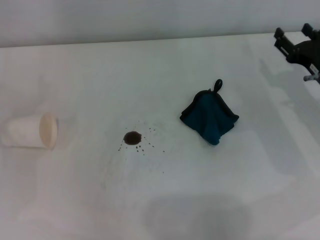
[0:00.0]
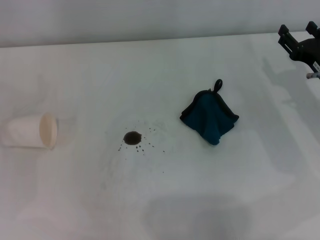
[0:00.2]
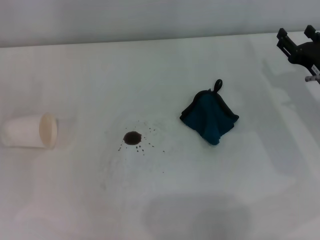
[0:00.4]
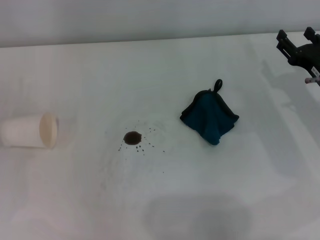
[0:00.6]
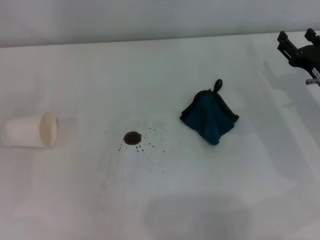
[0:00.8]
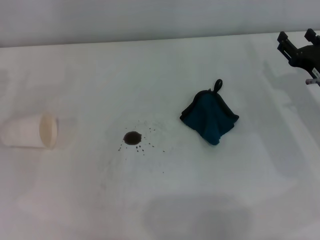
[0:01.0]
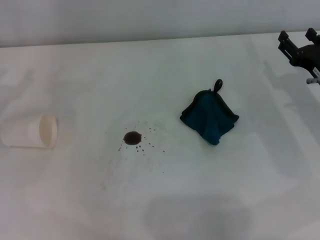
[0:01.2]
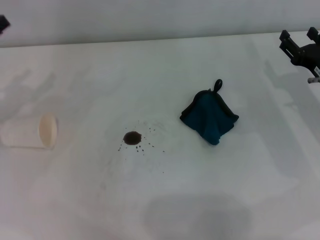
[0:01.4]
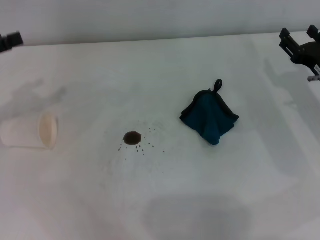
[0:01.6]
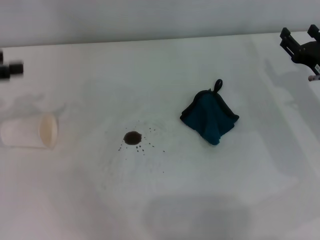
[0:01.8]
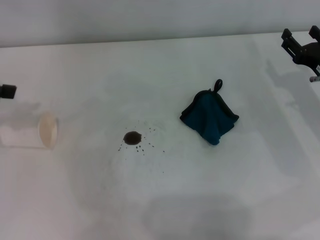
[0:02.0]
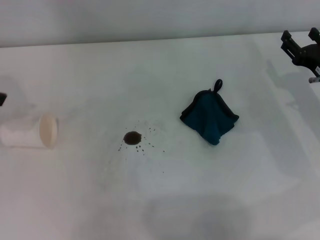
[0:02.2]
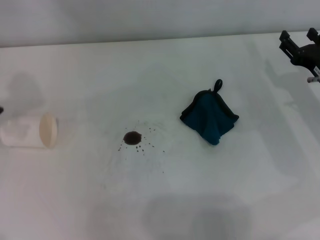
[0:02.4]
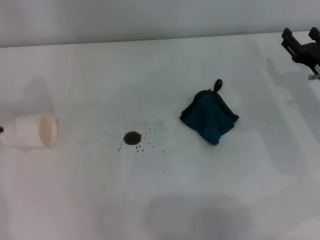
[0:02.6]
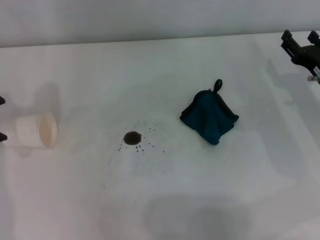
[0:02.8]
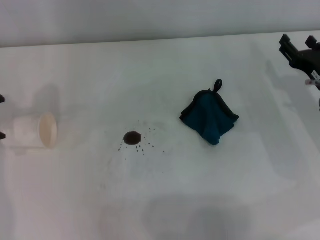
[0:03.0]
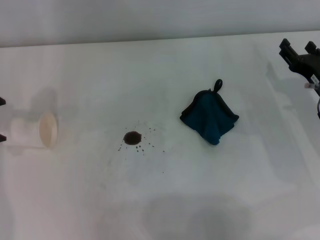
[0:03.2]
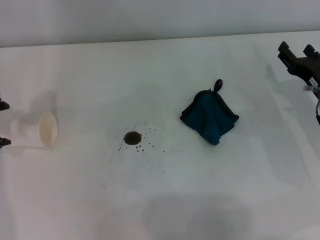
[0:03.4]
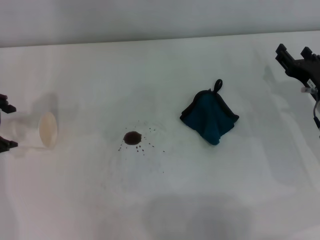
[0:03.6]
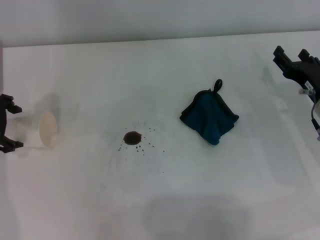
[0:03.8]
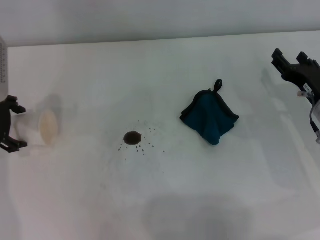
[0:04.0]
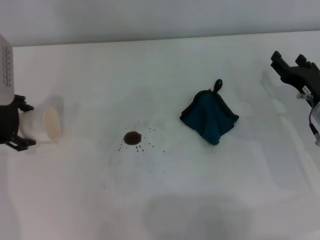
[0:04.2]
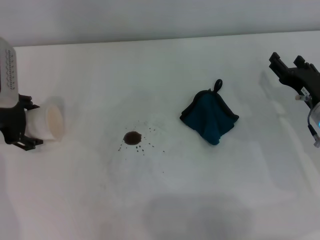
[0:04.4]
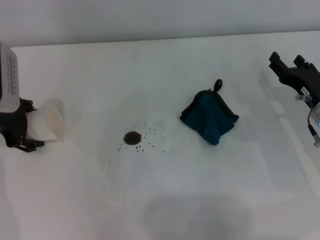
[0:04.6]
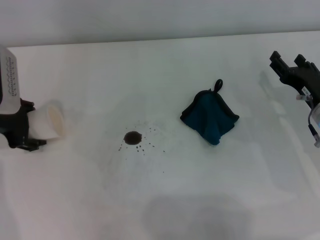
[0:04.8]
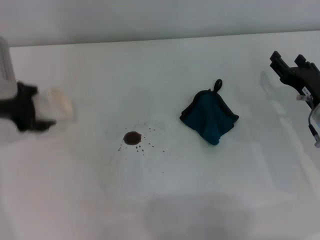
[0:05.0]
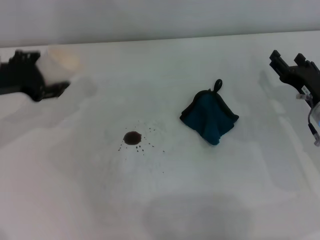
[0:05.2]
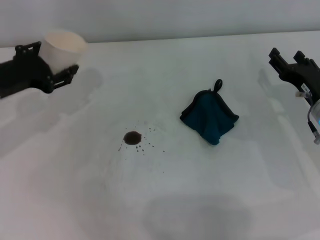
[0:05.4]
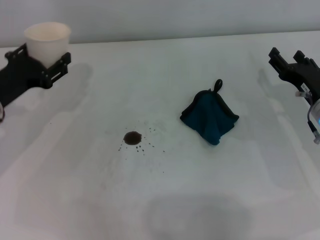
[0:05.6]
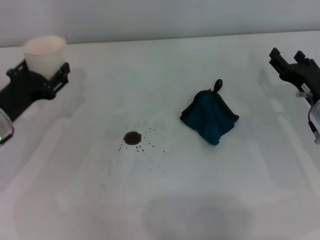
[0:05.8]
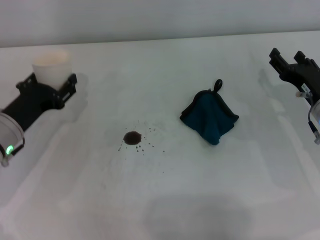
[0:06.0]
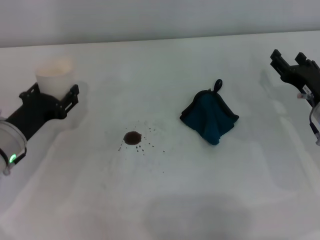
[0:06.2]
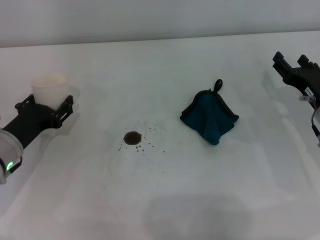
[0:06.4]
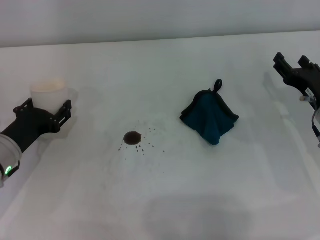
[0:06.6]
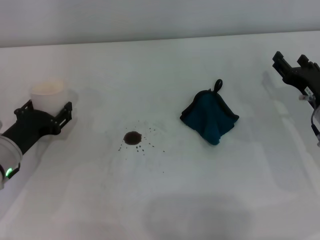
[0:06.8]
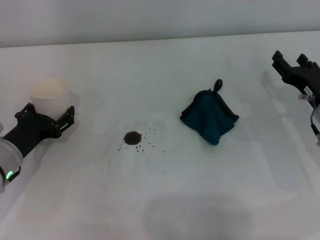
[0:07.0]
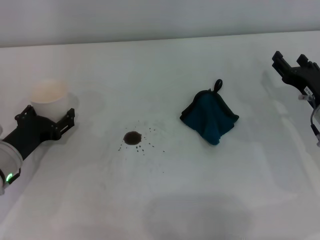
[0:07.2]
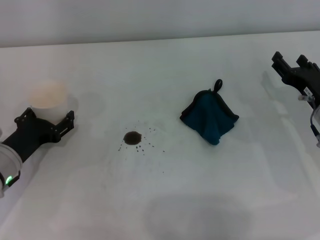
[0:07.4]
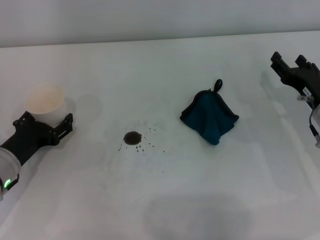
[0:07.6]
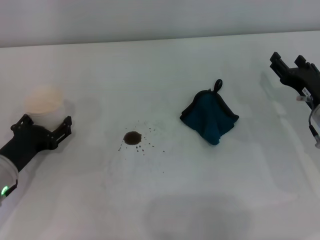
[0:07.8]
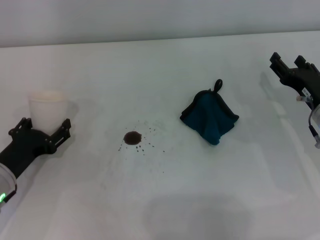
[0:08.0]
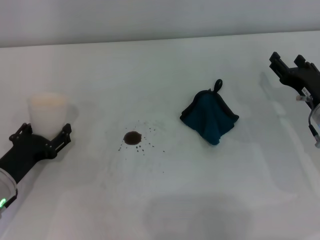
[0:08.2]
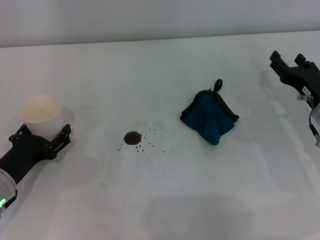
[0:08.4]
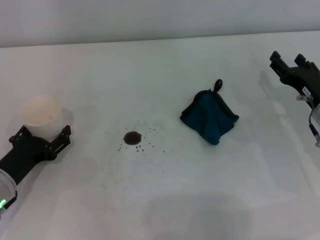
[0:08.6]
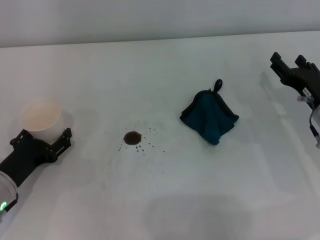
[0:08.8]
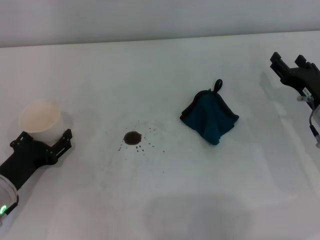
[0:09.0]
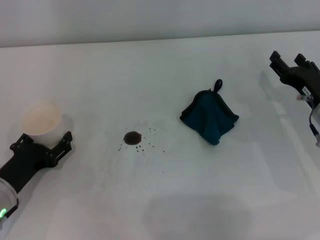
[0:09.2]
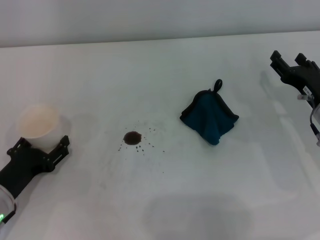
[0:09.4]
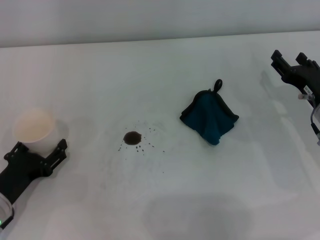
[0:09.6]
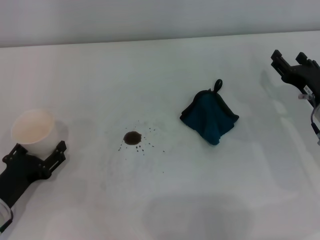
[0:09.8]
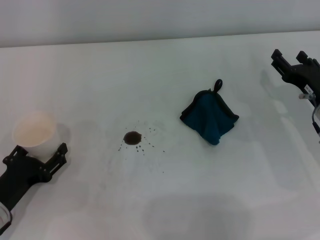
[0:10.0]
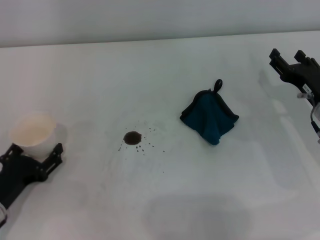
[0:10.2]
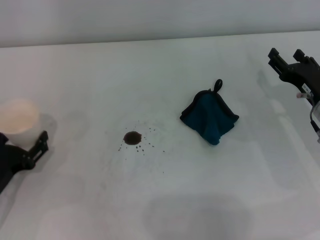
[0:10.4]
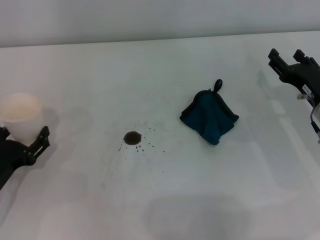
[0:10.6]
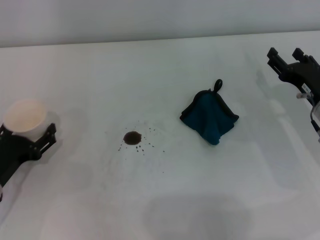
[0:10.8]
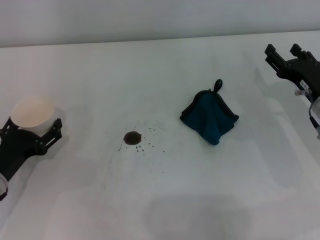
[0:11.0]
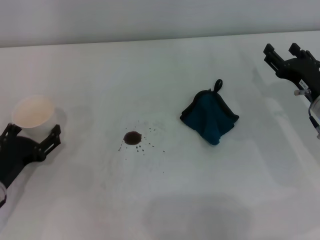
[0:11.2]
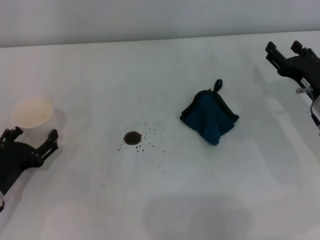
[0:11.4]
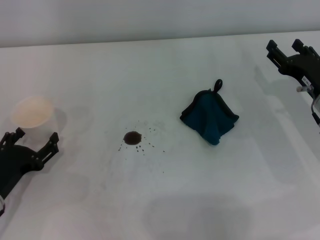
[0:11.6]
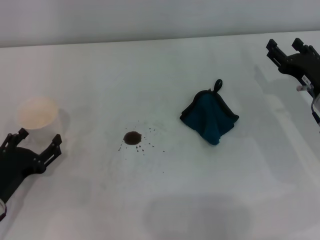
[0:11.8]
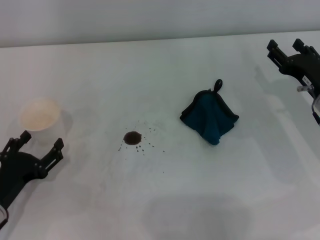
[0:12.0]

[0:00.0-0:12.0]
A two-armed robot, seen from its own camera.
Step, 0:00.0 to 0:04.6: Grasp the paper cup with the left gripper.
Step, 0:04.8 to 0:11.8: Stand the paper cup upright with the left gripper.
0:03.0 to 0:04.4: The left gripper moves downward, roughly 10 cm.
0:04.4 to 0:06.0: The left gripper heads downward and backward, covering roughly 10 cm, and closes.
0:06.0 to 0:07.6: The left gripper shifts by approximately 5 cm, and opens up.
0:07.6 to 0:09.0: There are only small adjustments of the grippers.
0:09.0 to 0:12.0: The grippers stay close to where they were, moving slightly.

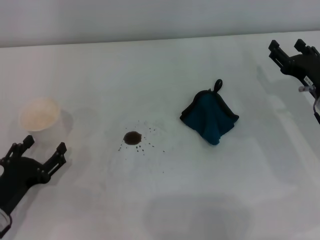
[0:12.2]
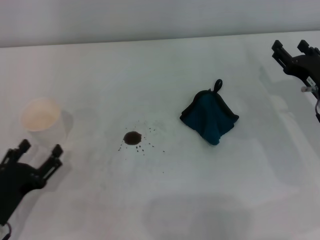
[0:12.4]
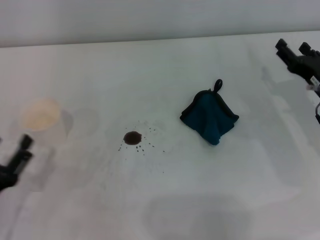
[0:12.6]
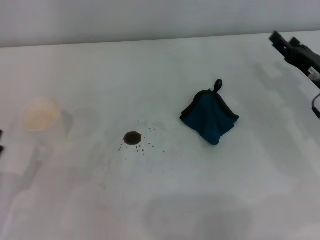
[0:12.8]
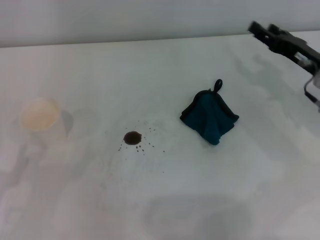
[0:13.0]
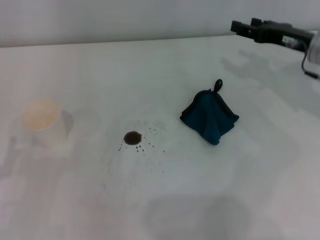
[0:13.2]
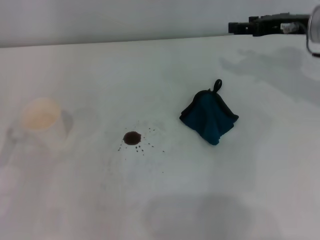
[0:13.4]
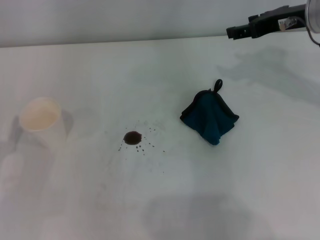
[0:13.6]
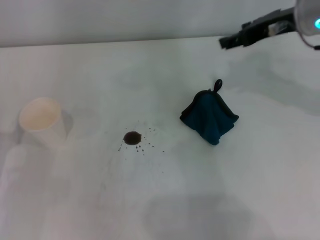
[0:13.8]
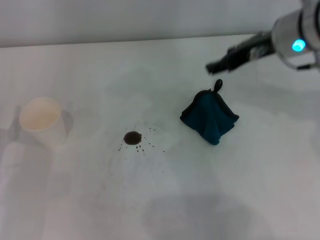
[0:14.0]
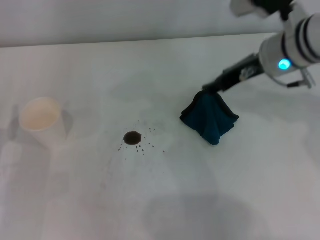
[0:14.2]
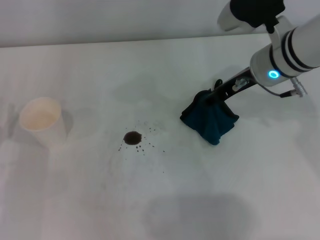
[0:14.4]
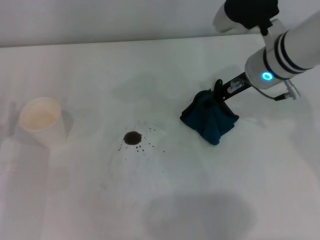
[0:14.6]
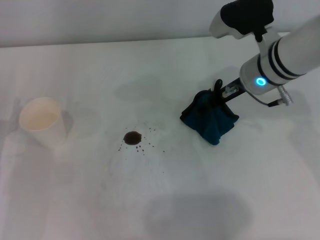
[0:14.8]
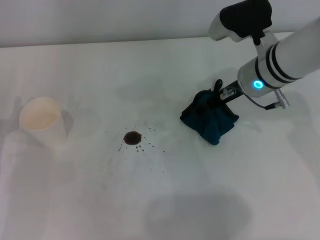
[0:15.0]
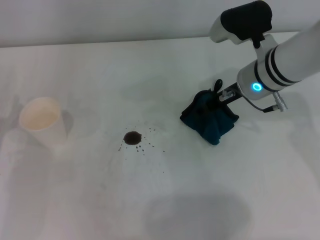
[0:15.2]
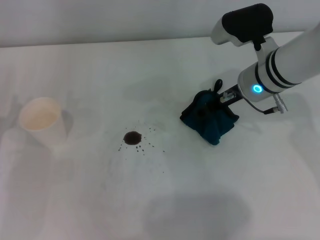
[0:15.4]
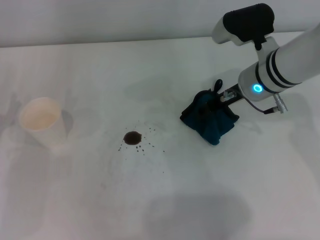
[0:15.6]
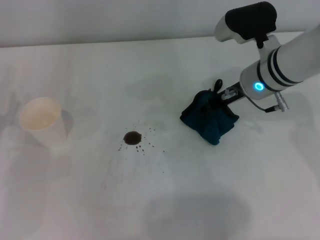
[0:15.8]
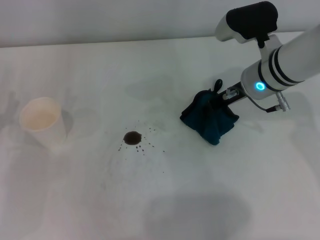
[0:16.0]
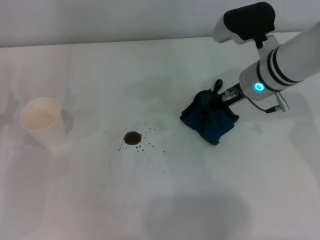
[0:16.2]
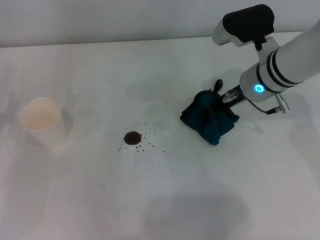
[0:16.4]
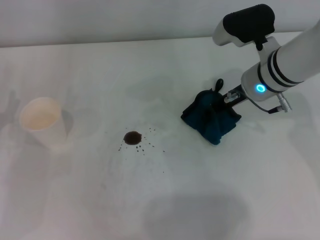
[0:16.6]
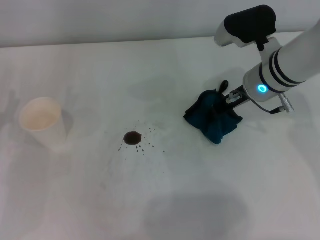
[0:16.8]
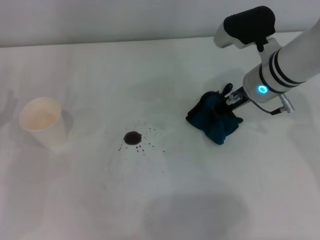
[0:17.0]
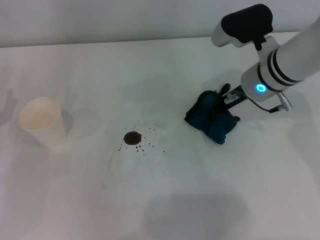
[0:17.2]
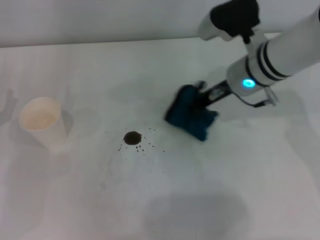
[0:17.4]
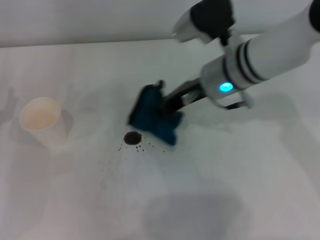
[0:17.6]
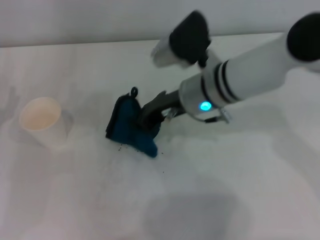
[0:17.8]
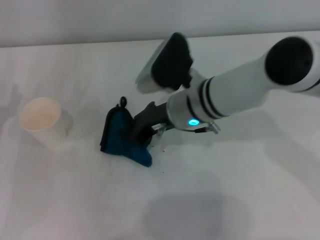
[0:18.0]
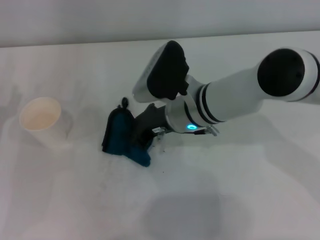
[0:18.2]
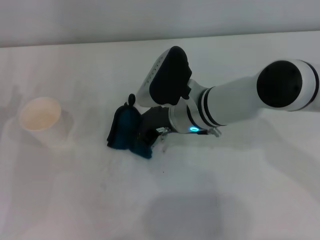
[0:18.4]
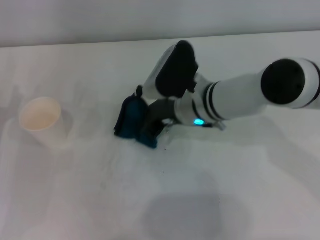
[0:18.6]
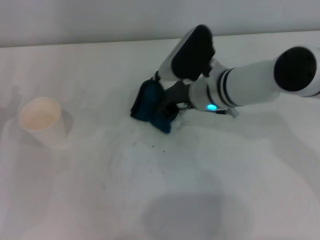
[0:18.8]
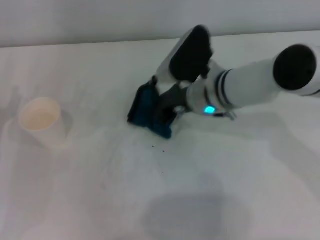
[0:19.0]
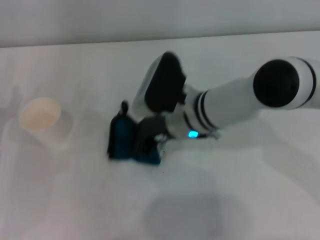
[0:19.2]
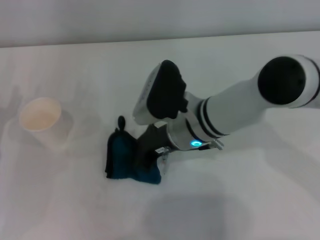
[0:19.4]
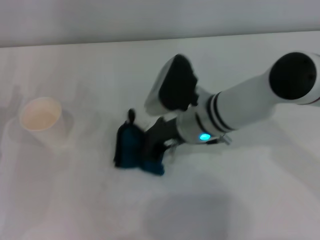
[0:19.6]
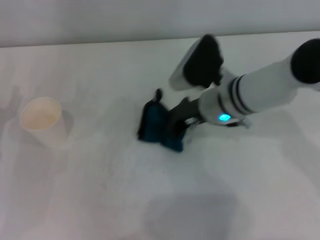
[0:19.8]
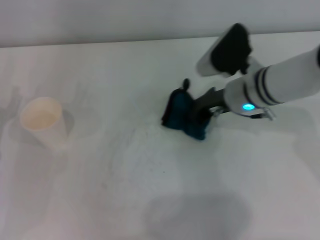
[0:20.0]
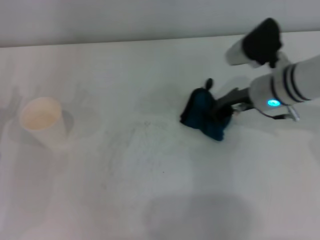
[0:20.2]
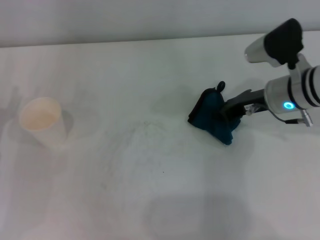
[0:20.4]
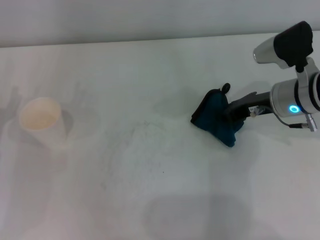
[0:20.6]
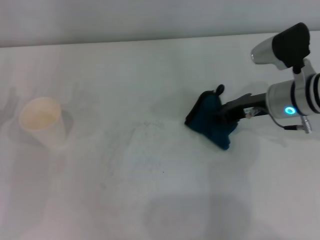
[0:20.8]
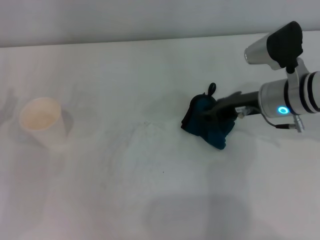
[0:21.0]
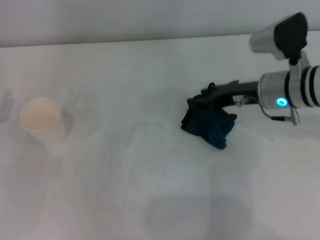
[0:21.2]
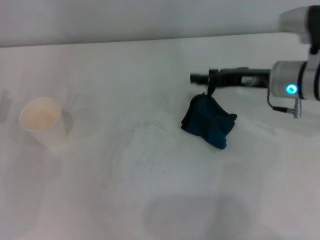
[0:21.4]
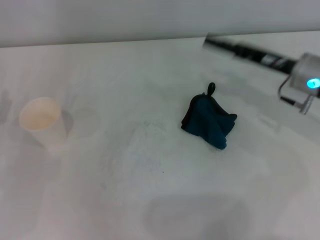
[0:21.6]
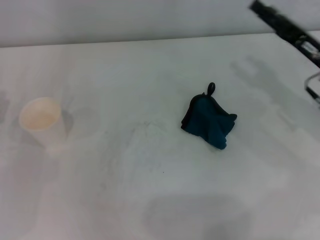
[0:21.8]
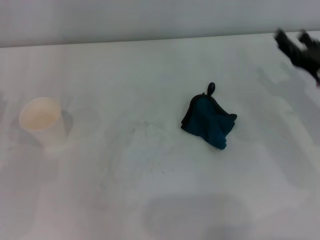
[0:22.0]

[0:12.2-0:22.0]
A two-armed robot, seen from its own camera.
Step, 0:12.2 to 0:17.0: Grasp the rag with the right gripper.
Step, 0:17.2 to 0:20.0: Wipe the stains off the table with the right gripper.
Step, 0:20.2 to 0:20.8: Place the rag on the table with the right gripper.
0:12.2 to 0:13.6: The left gripper changes place by approximately 5 cm, while the right gripper heads upward and forward, covering about 20 cm.
0:13.6 to 0:15.0: The right gripper shifts roughly 10 cm to the left and downward.
0:15.0 to 0:16.4: The right gripper closes up.
0:16.4 to 0:17.8: The right gripper is displaced to the left by roughly 10 cm, and closes its fingers.
0:17.8 to 0:19.2: There are only small adjustments of the grippers.
0:19.2 to 0:20.6: The right gripper travels to the right by some 15 cm.
0:20.6 to 0:22.0: The right gripper is displaced to the right by approximately 10 cm, and opens its fingers.
